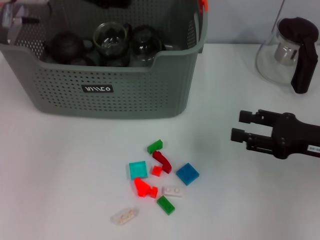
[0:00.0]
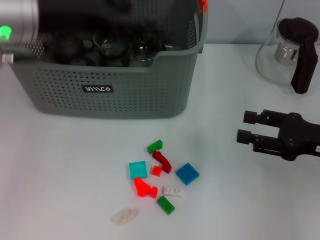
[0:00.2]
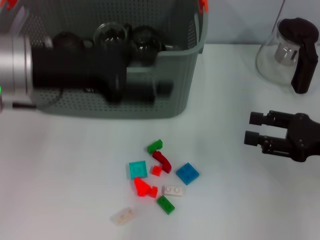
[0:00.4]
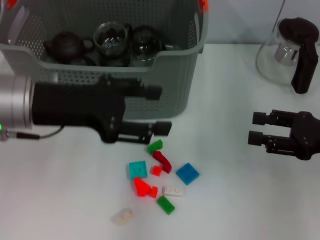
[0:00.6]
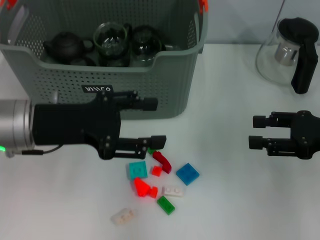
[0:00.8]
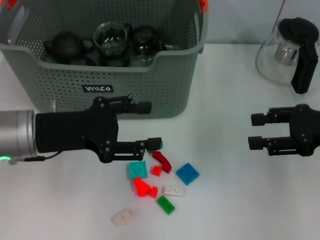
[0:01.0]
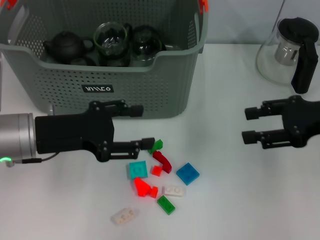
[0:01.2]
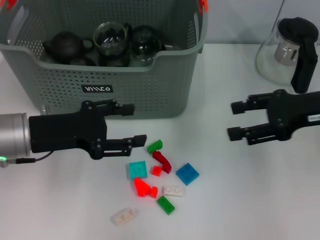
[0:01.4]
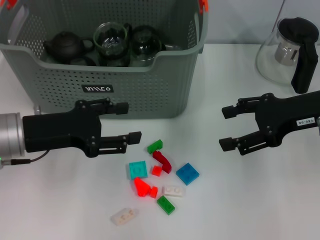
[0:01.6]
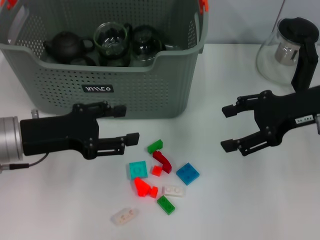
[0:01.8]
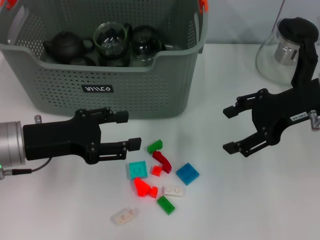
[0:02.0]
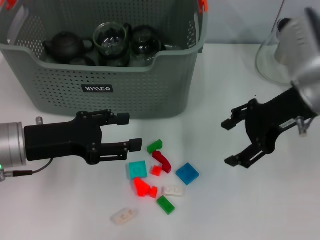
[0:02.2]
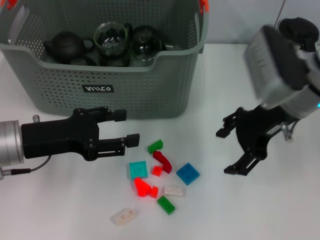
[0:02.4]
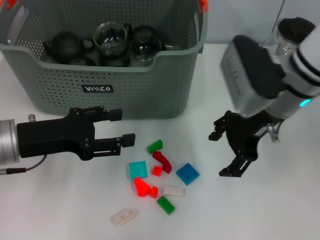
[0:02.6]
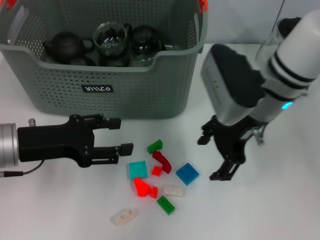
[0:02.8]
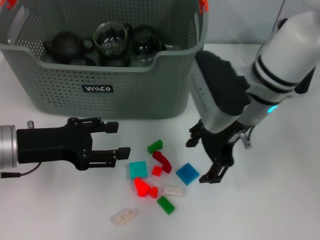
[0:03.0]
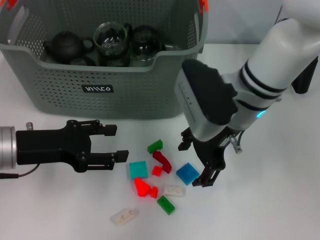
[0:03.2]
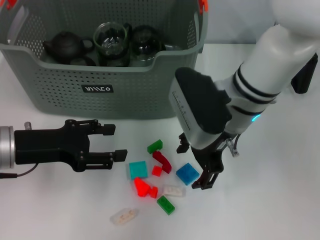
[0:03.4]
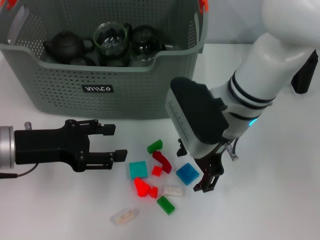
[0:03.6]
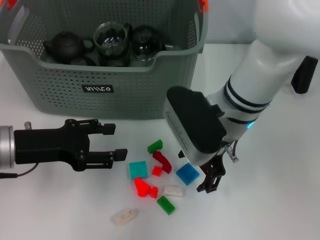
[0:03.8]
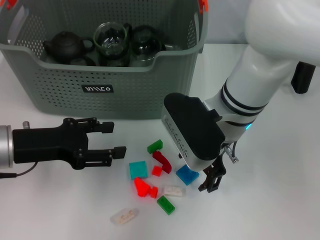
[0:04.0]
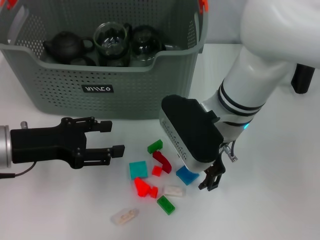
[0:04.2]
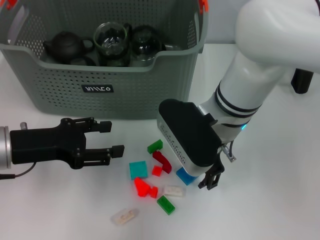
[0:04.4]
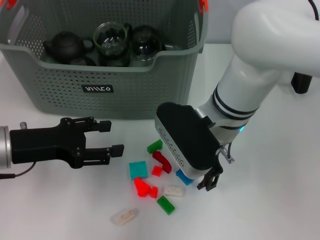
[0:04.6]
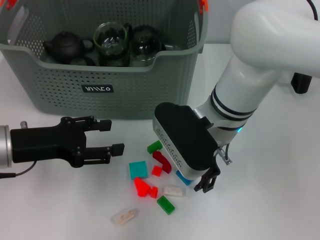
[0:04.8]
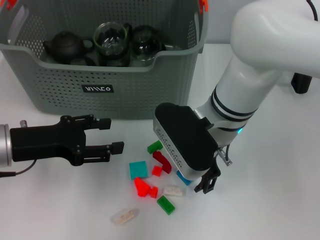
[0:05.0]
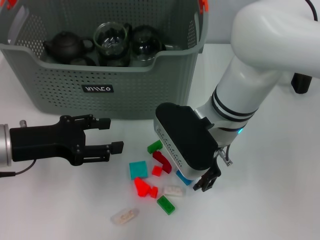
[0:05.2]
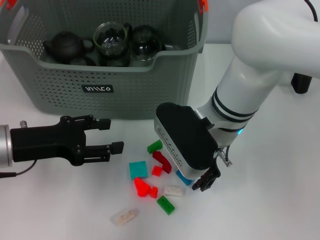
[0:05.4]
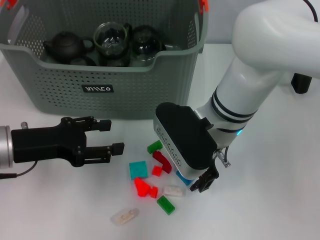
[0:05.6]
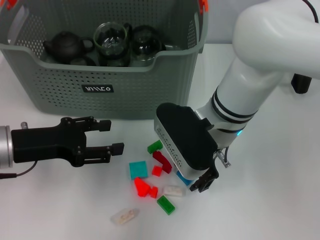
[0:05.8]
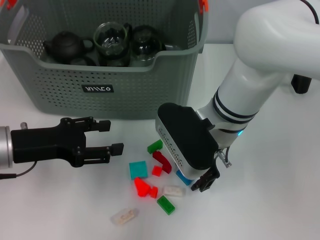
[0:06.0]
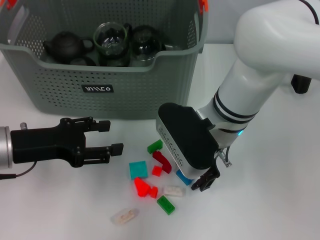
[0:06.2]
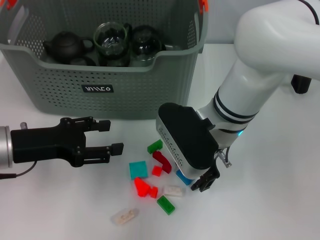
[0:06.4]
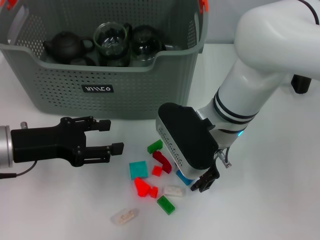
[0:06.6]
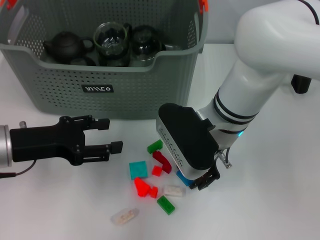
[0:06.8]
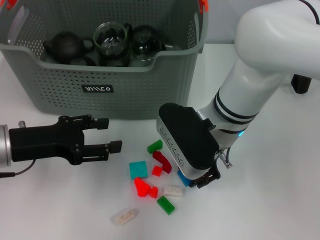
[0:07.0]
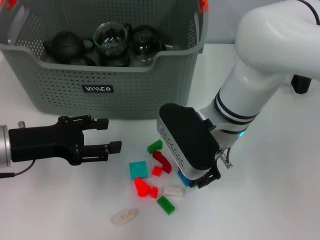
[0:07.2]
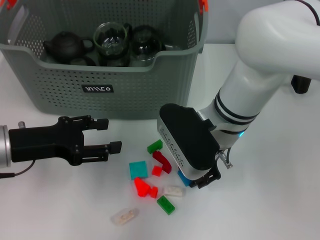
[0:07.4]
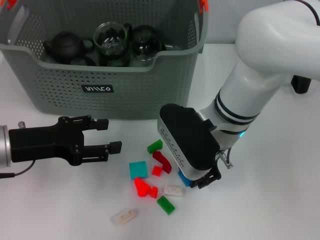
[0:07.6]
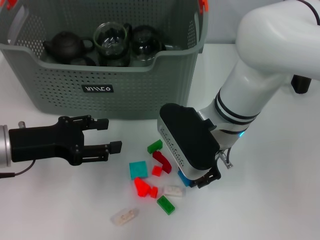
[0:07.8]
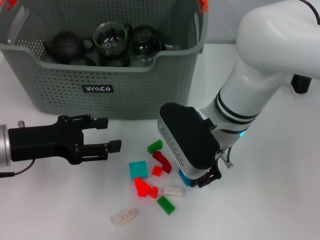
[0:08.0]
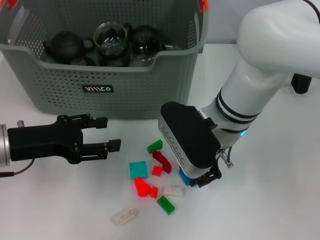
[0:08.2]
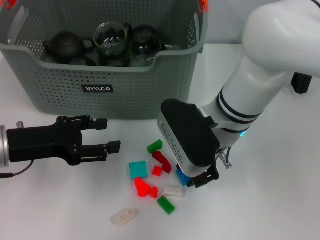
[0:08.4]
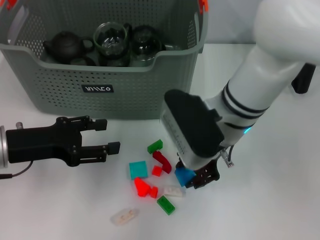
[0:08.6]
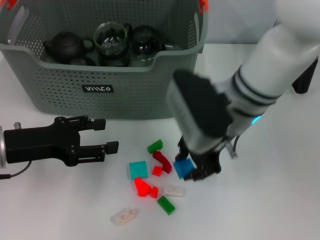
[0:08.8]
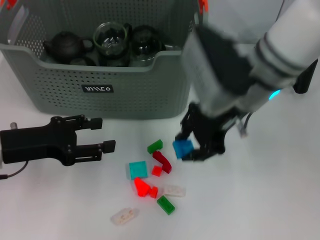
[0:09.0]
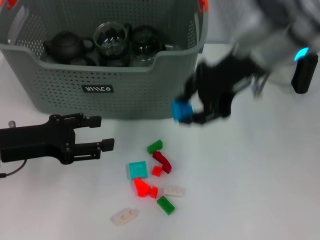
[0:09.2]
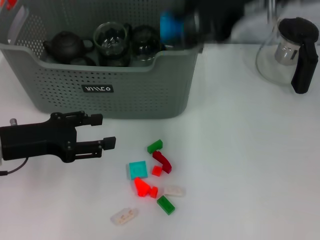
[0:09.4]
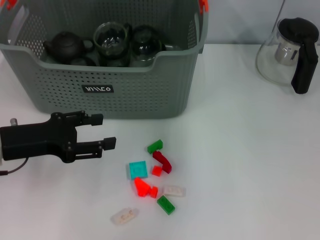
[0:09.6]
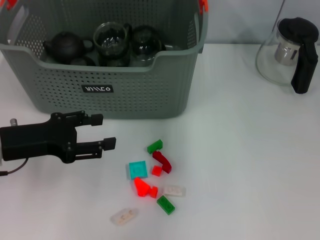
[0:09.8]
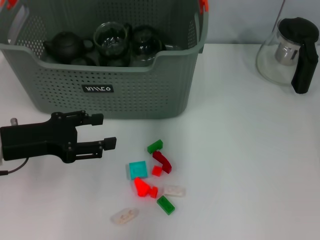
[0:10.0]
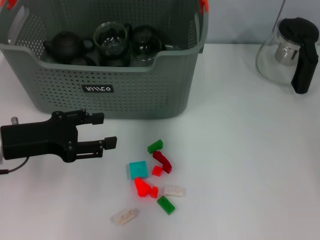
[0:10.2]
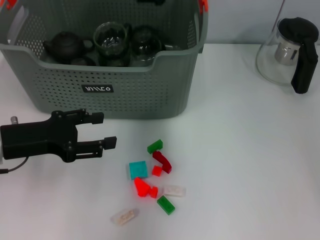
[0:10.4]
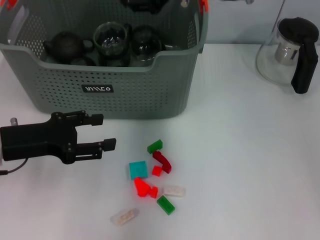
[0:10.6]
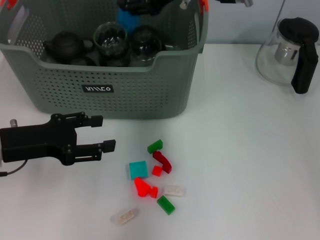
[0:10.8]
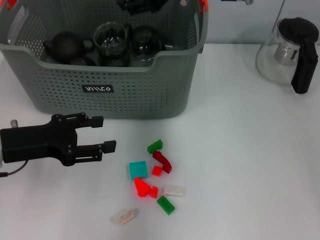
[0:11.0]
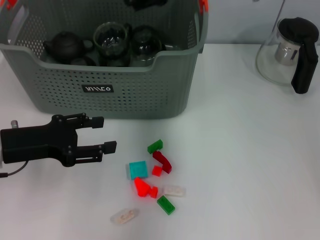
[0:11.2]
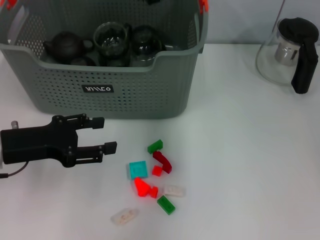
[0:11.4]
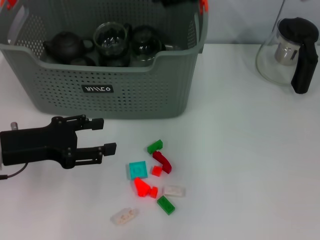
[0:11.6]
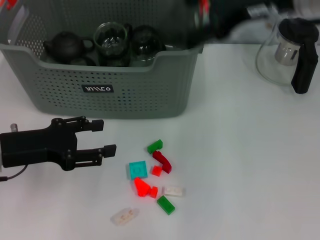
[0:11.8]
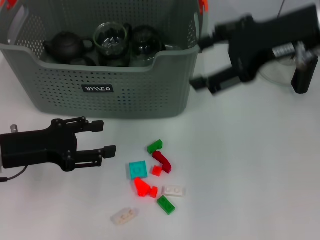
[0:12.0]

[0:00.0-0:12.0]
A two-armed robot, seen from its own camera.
Task of the whole recording: pick up the teacup on the table and place it into the storage bin, pick up the block on the table and place it into the storage bin.
Step, 0:00.0 to 0:07.2: Grasp the dark blue block with right gripper.
Step, 0:07.4 to 0:10.8: Place the dark blue block in the storage box with right gripper.
0:00.0 to 0:01.6: The left gripper travels downward and backward by roughly 20 cm. Meanwhile the right gripper goes about 10 cm upward and forward.
0:01.6 to 0:03.0: The right gripper is displaced to the left by approximately 15 cm.
0:03.0 to 0:04.4: The right gripper changes place by approximately 5 cm.
0:04.4 to 0:07.6: The two grippers keep their place.
0:07.6 to 0:09.0: The right gripper is displaced upward by some 10 cm.
0:09.0 to 0:10.4: The right gripper is displaced forward and upward by about 10 cm.
0:10.4 to 0:12.0: The right gripper shifts roughly 15 cm to the right and backward, and opens up.

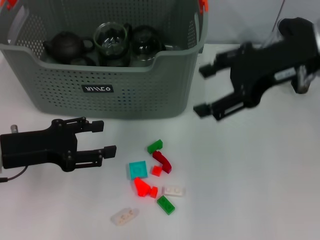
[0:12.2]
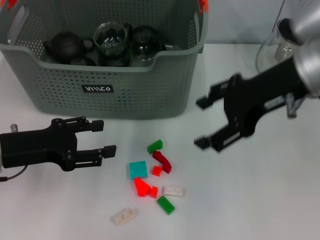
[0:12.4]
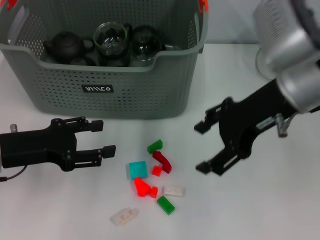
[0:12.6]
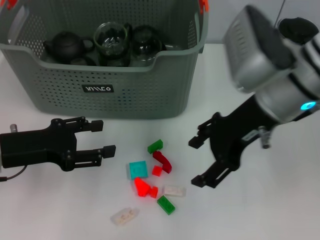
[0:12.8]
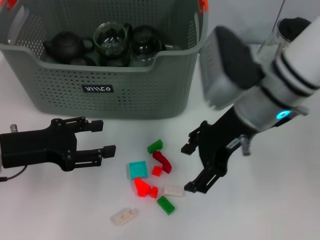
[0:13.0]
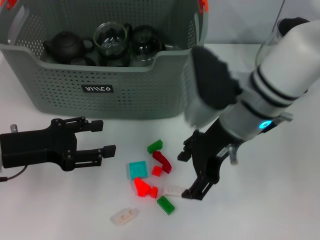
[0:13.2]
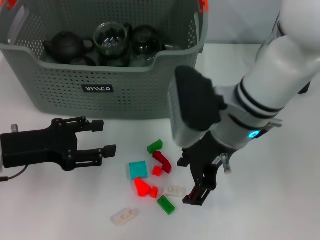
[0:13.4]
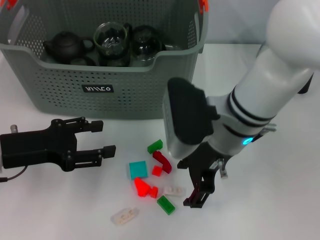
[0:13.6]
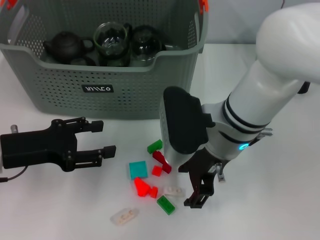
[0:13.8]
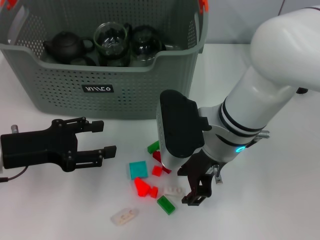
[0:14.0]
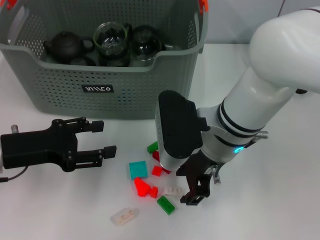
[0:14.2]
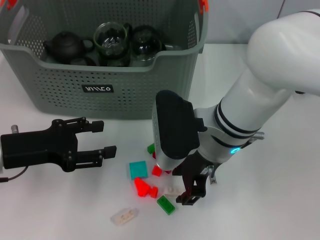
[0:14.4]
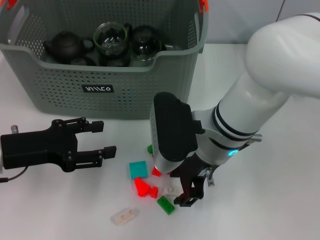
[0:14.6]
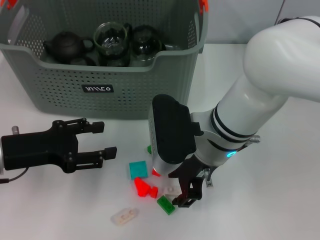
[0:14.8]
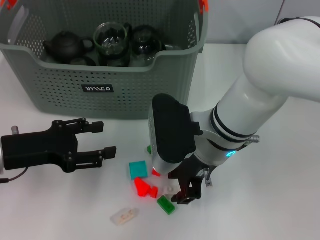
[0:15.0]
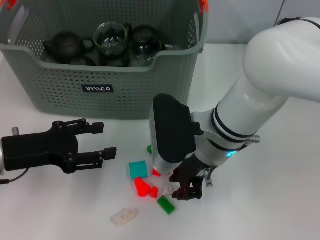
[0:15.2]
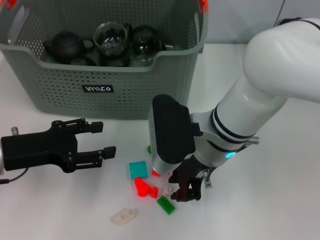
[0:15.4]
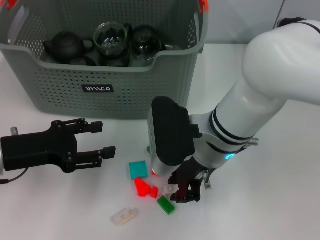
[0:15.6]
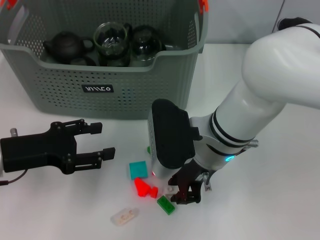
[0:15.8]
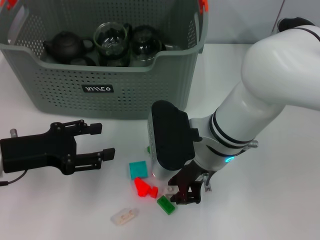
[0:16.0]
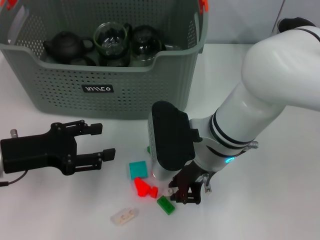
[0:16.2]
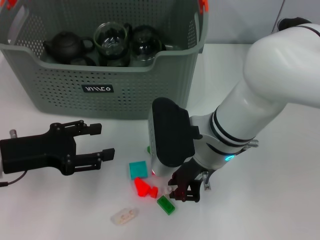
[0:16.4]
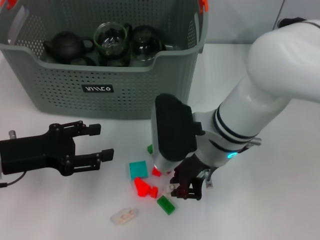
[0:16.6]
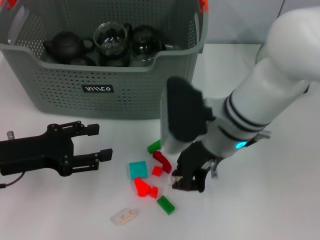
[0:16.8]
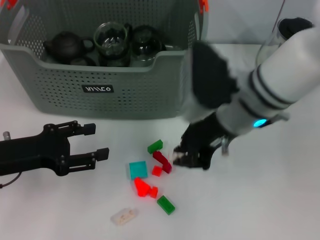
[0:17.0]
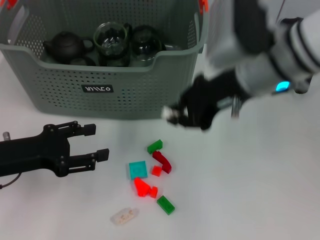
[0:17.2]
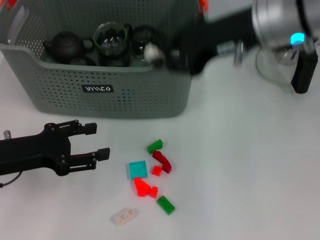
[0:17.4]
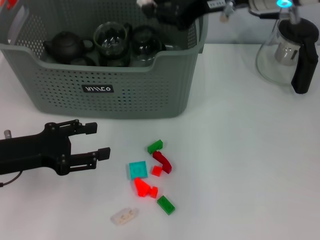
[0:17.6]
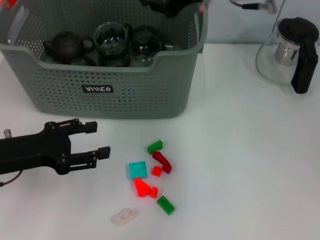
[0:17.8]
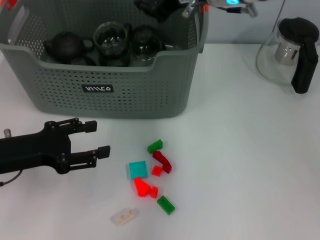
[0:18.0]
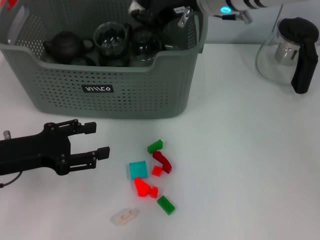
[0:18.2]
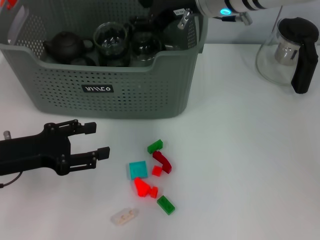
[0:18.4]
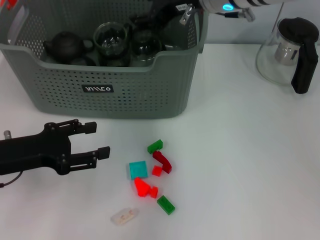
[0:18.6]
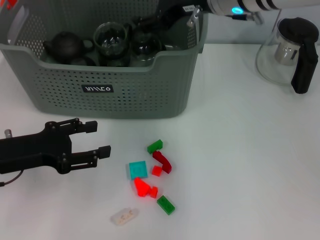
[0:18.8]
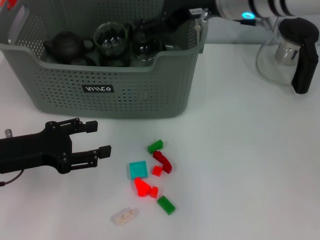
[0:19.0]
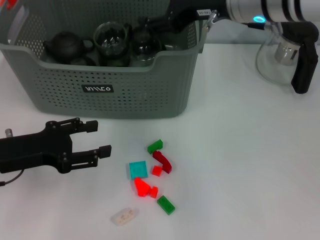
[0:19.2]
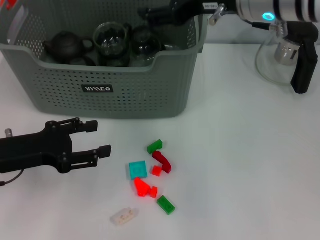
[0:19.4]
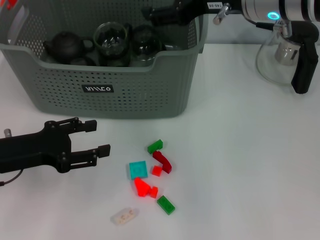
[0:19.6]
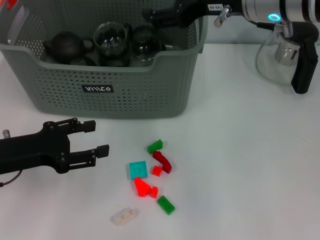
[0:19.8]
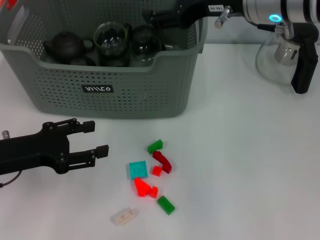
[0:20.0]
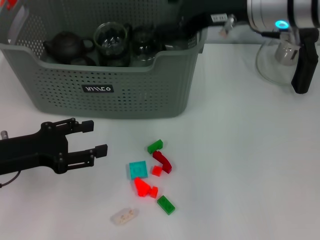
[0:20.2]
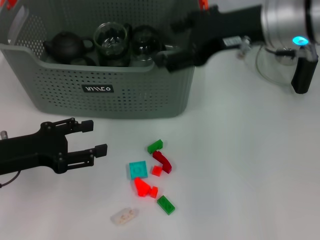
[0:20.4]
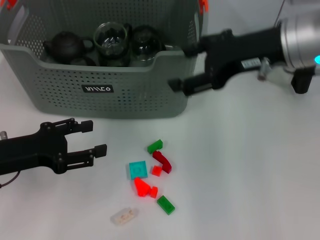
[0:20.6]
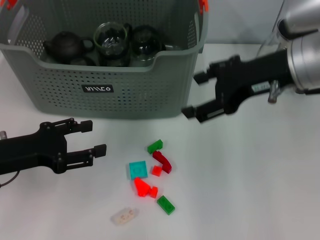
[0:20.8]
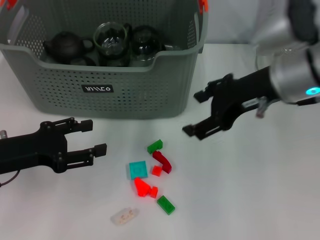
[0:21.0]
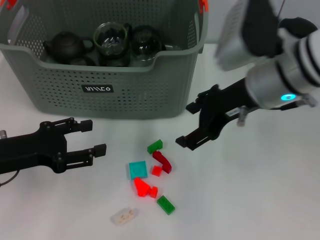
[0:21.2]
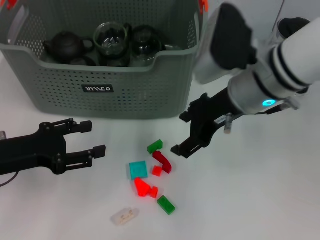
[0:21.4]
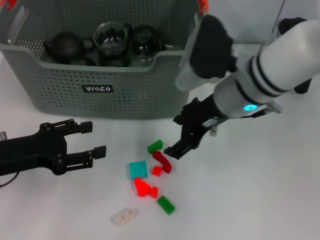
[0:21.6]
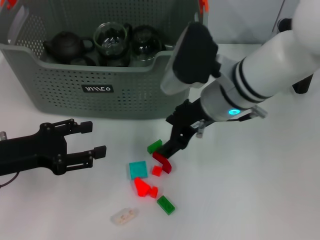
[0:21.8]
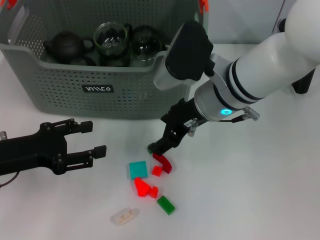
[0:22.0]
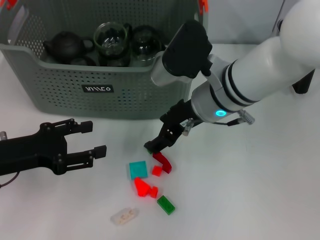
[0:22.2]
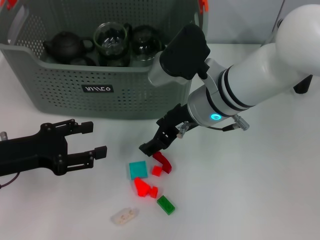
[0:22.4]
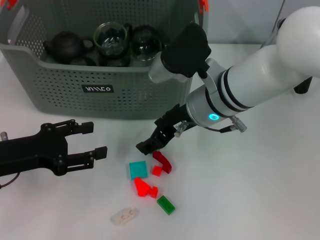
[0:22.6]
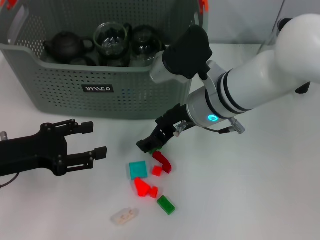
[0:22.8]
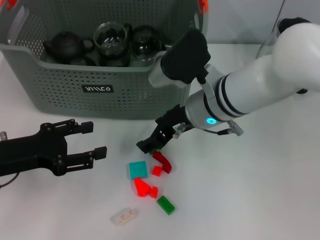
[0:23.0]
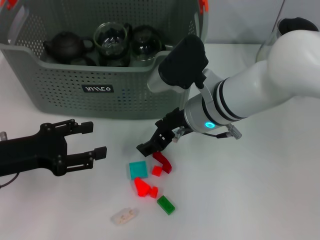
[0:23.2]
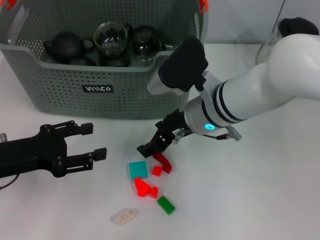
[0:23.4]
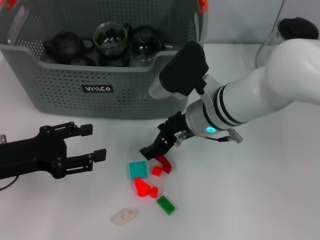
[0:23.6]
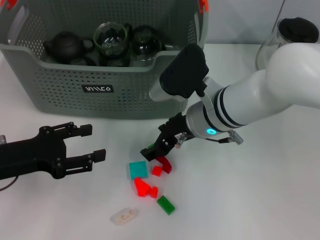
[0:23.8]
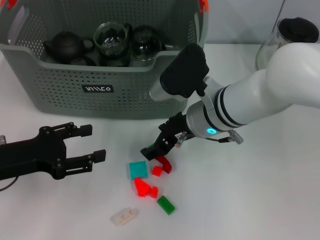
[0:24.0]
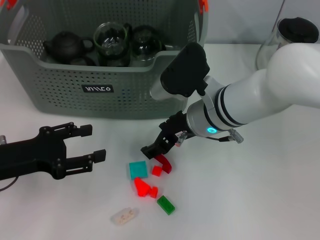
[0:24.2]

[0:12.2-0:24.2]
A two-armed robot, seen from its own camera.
Task of the whole recording: pick up the teacup on the table and place it into the storage bin, pick up the block on the table and place it into the storage bin.
Step, 0:12.2 to 0:16.2: Grasp the white block with right gripper.
Step, 0:16.4 to 0:18.4: Place the white block in the storage box with right gripper.
0:12.2 to 0:13.8: The right gripper is displaced downward and to the left by about 15 cm.
0:13.8 to 0:15.2: The right gripper closes its fingers.
0:15.2 to 0:16.6: The right gripper closes up.
0:16.6 to 0:18.2: The right gripper shifts about 15 cm forward and upward.
0:18.2 to 0:19.8: The right gripper goes about 5 cm to the right, and opens.
0:19.8 to 0:21.2: The right gripper shifts approximately 5 cm downward.
0:21.2 to 0:22.6: The right gripper moves to the left and downward, approximately 10 cm.
0:22.6 to 0:24.2: The grippers stay close to where they were, moving slightly.
